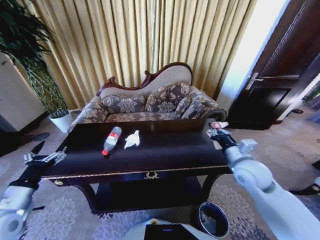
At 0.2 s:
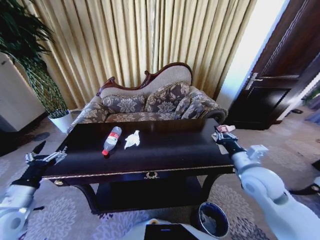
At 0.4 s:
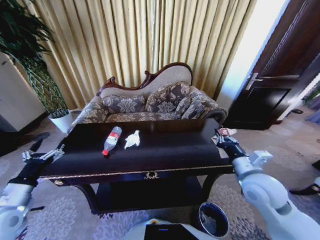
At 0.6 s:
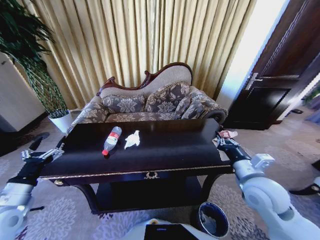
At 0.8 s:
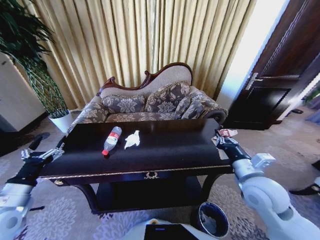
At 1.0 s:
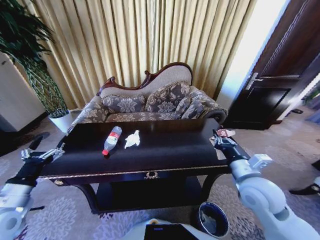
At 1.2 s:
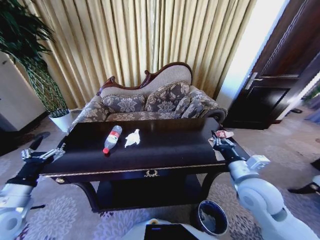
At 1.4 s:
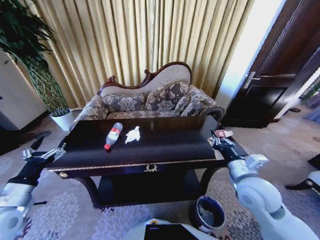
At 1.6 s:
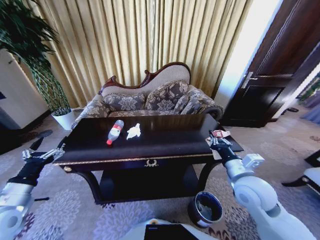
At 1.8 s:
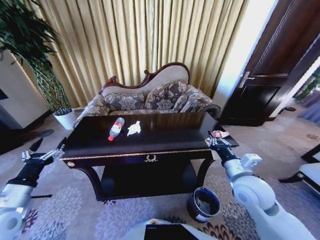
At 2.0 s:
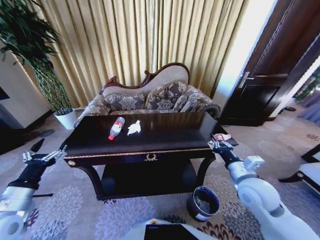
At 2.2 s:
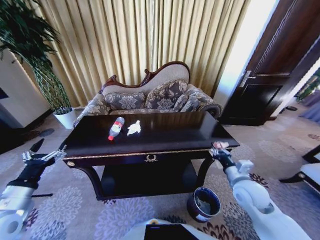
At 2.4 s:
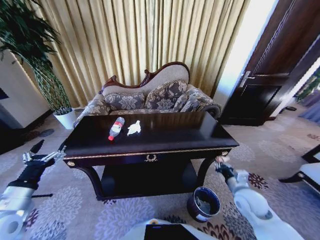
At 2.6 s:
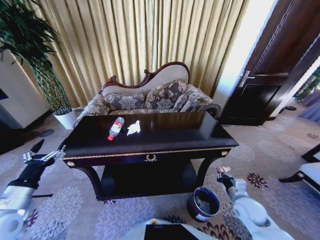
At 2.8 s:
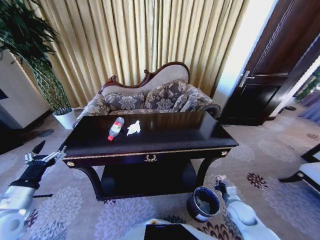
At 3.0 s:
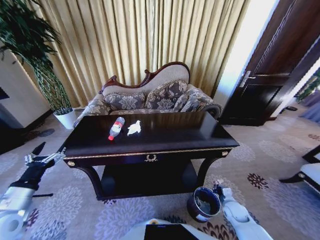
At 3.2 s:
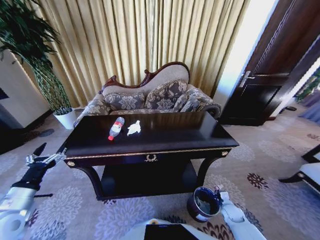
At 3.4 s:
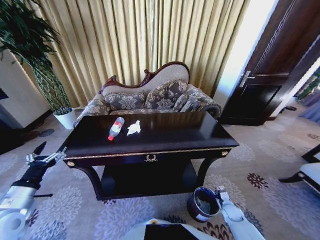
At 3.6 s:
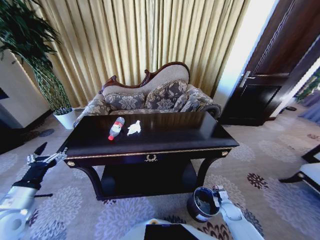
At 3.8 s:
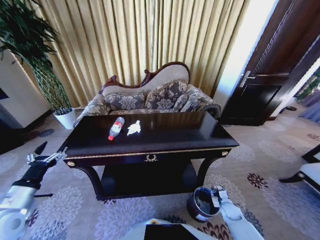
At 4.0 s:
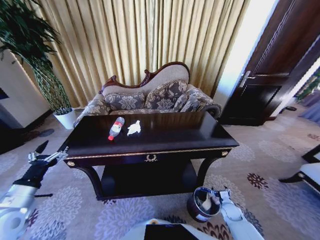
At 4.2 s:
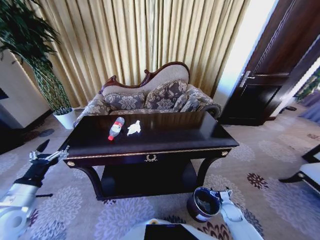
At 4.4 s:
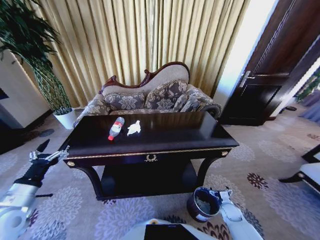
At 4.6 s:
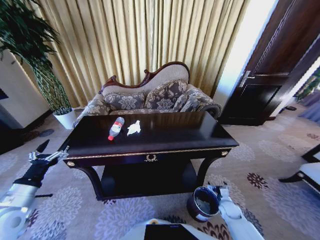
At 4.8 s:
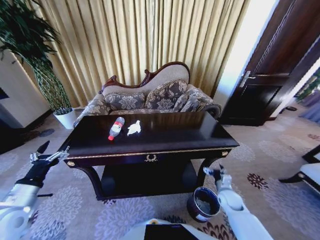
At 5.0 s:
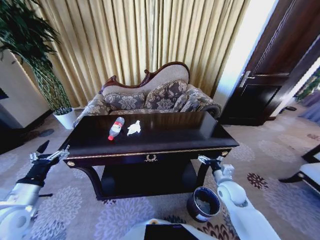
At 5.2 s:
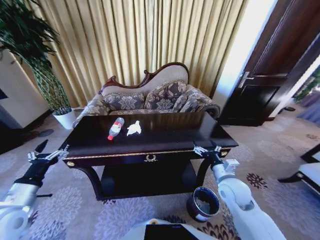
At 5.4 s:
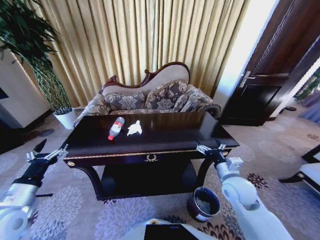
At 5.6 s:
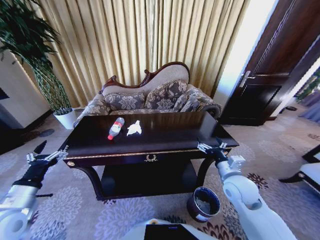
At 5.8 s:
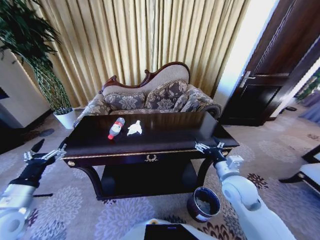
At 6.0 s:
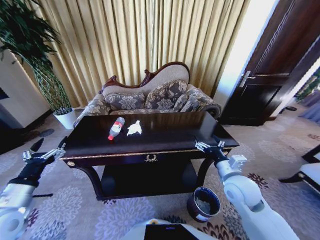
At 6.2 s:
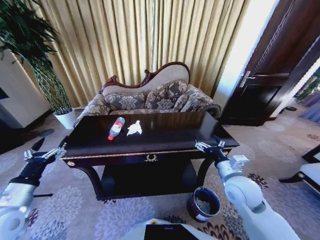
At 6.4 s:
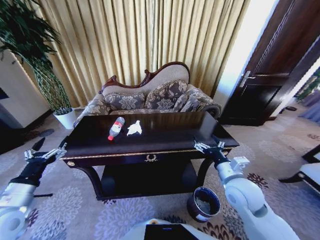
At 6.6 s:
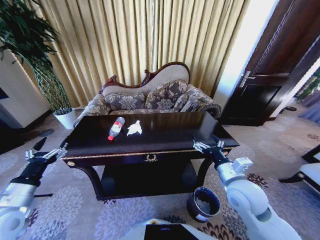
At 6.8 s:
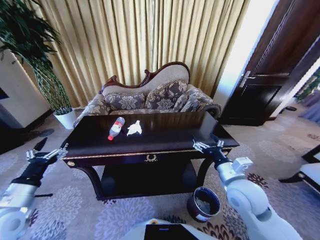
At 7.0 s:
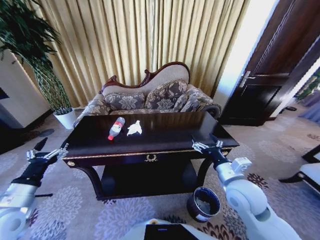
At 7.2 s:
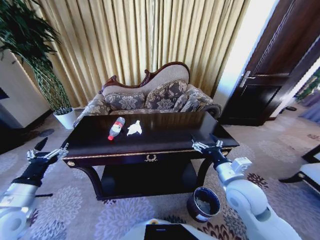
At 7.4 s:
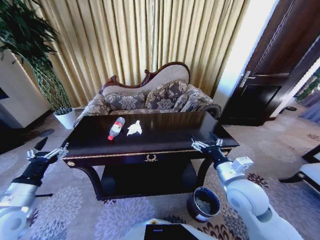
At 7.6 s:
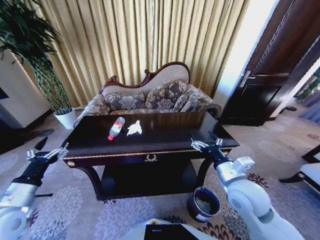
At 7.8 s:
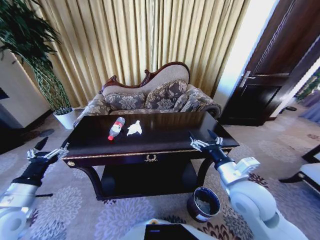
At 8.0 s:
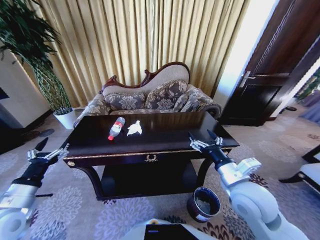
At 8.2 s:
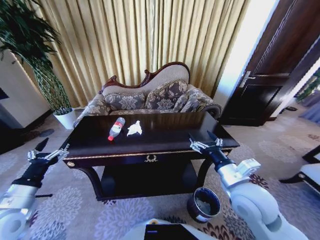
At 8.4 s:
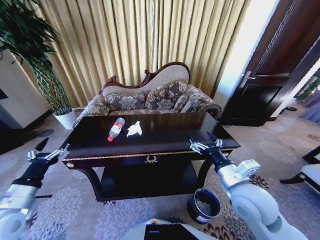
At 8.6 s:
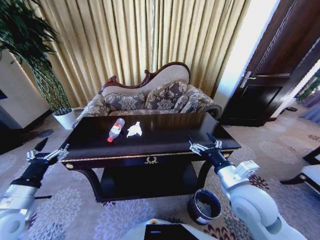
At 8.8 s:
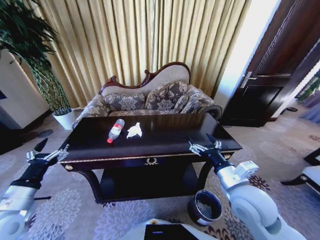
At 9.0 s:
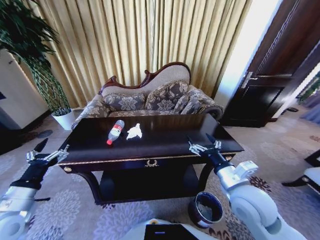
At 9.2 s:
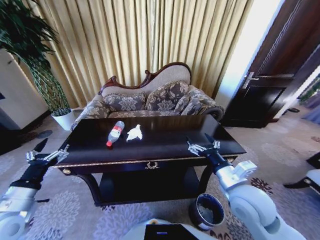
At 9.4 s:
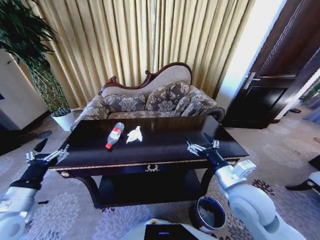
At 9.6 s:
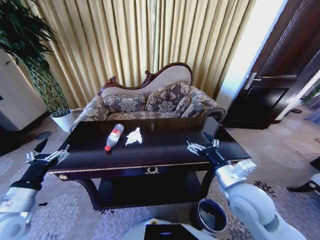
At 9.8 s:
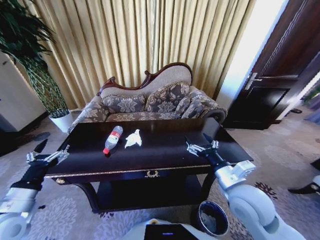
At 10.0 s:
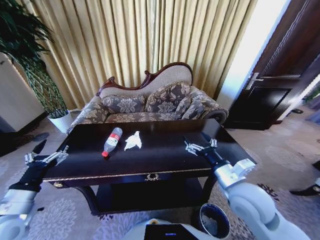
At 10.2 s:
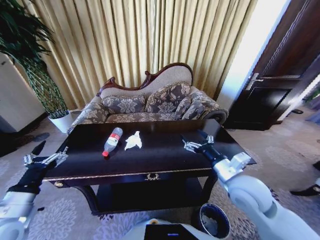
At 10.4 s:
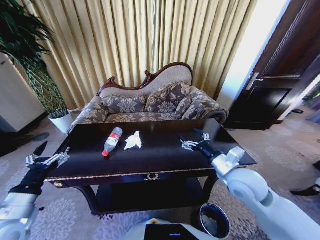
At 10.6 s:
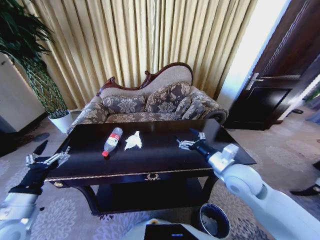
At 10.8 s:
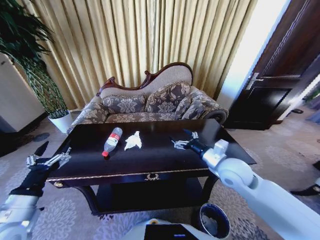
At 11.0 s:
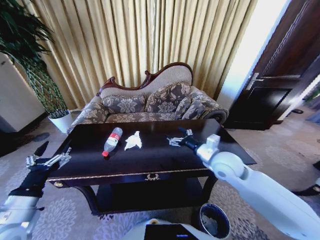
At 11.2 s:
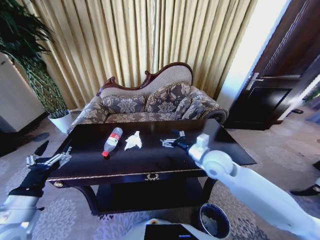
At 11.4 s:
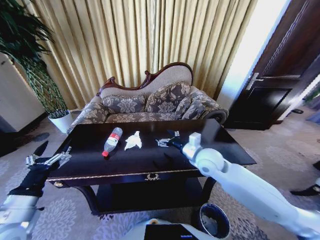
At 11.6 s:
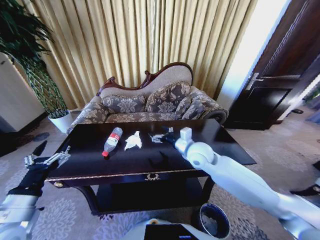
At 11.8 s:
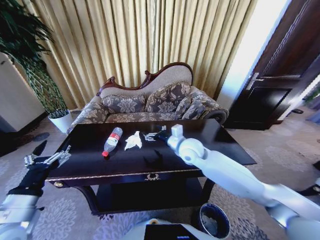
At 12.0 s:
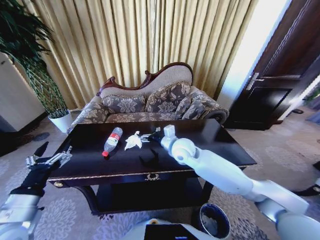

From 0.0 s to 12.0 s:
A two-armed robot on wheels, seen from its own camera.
Task of the whole recording: Move to the front of the table and place the trash on the table into the trash bin.
From 0.0 s to 1.6 s: The right gripper ends up approximately 5 cm from where it was.
From 1.6 s to 3.0 s: The right gripper heads downward, covering roughly 30 cm.
From 3.0 s to 4.4 s: The right gripper travels downward by roughly 5 cm, and opens up.
From 4.4 s to 6.0 s: The right gripper heads upward, covering roughly 35 cm.
From 6.0 s to 7.6 s: The right gripper ends up approximately 5 cm from where it was.
From 9.0 s to 10.4 s: The right gripper moves forward, roughly 5 cm.
From 10.4 s to 12.0 s: The right gripper moves to the left and forward, roughly 20 cm.

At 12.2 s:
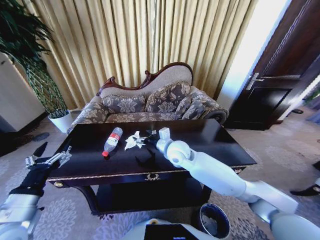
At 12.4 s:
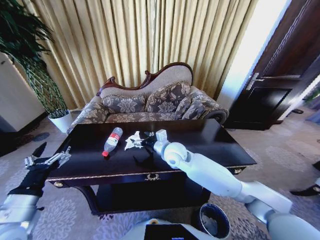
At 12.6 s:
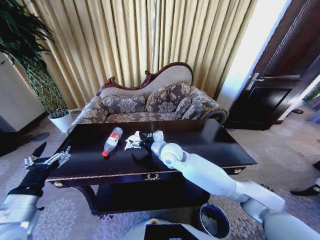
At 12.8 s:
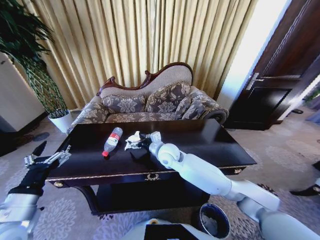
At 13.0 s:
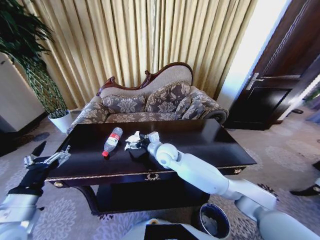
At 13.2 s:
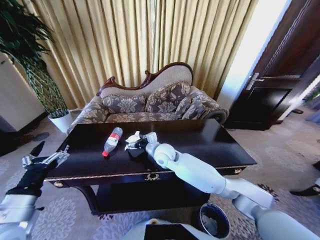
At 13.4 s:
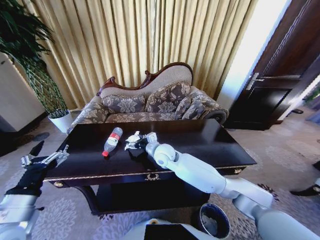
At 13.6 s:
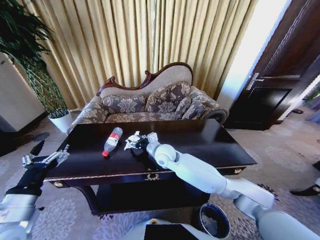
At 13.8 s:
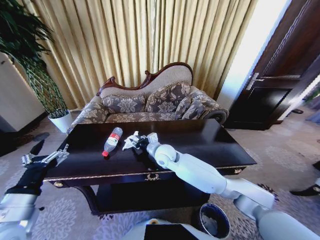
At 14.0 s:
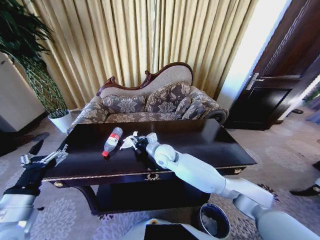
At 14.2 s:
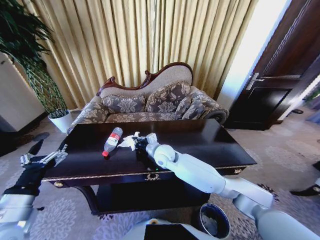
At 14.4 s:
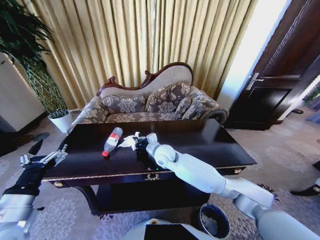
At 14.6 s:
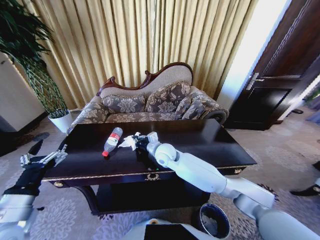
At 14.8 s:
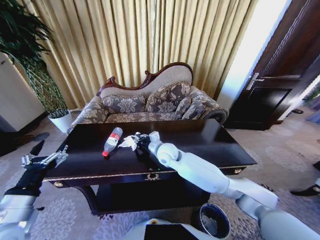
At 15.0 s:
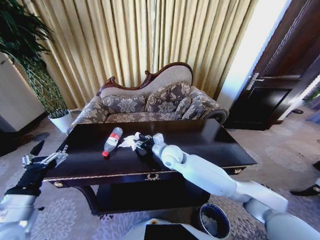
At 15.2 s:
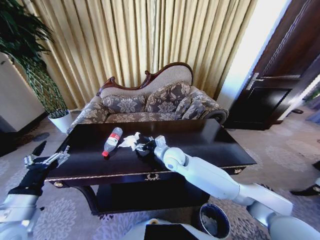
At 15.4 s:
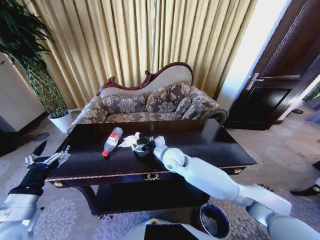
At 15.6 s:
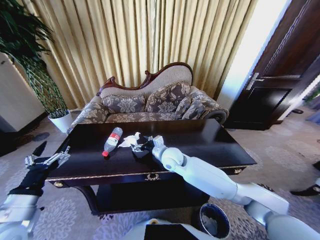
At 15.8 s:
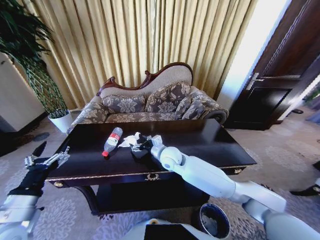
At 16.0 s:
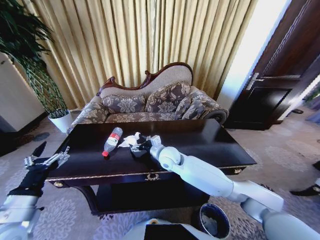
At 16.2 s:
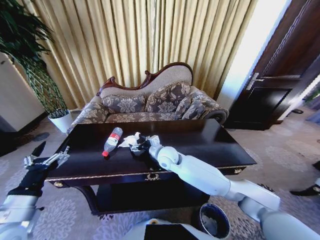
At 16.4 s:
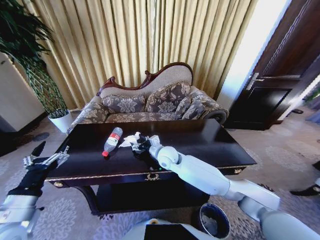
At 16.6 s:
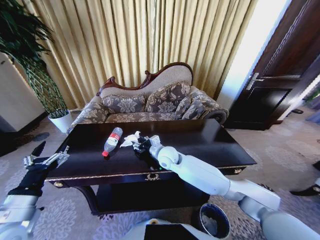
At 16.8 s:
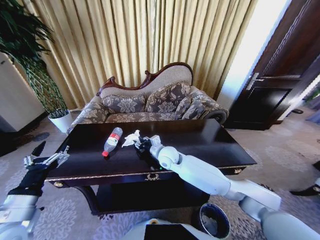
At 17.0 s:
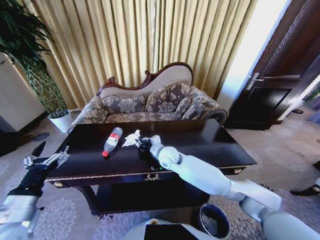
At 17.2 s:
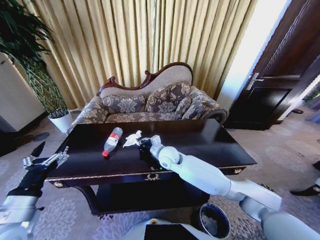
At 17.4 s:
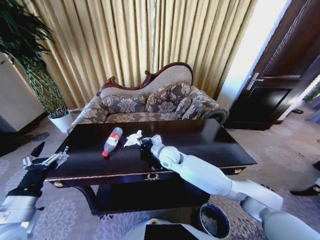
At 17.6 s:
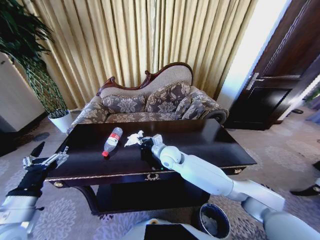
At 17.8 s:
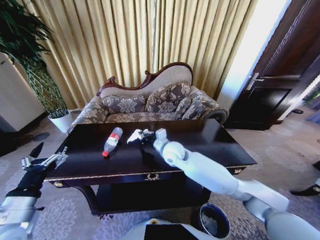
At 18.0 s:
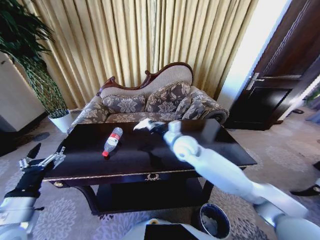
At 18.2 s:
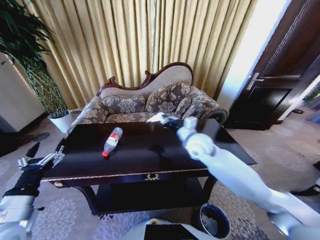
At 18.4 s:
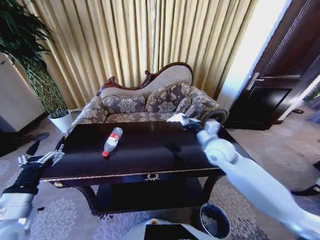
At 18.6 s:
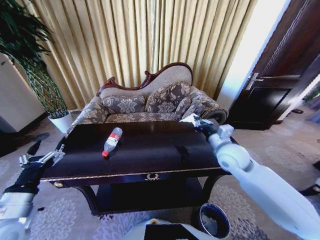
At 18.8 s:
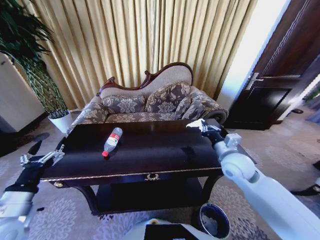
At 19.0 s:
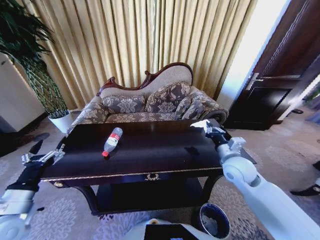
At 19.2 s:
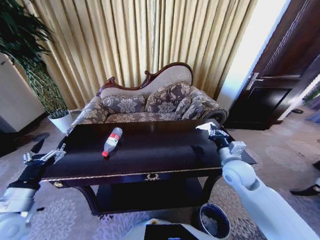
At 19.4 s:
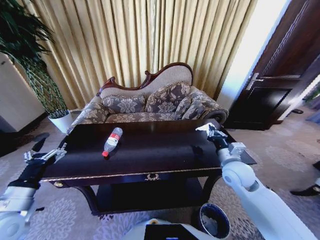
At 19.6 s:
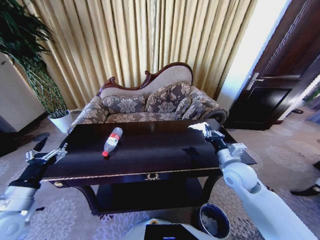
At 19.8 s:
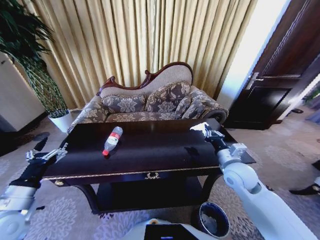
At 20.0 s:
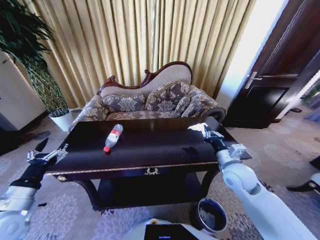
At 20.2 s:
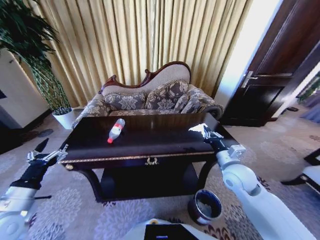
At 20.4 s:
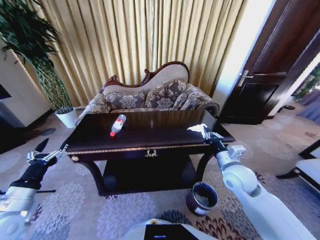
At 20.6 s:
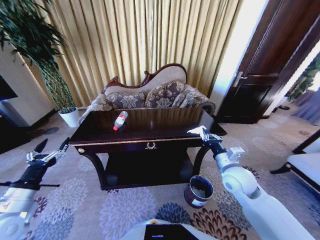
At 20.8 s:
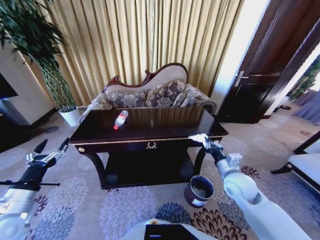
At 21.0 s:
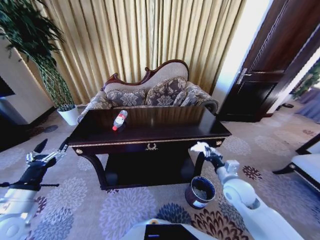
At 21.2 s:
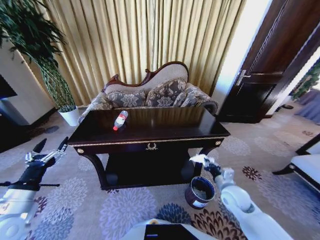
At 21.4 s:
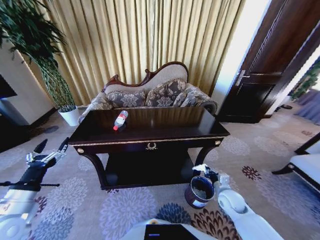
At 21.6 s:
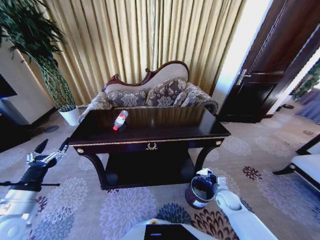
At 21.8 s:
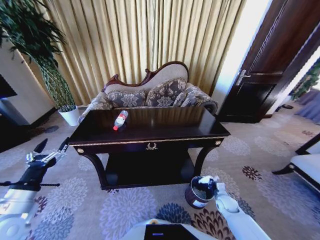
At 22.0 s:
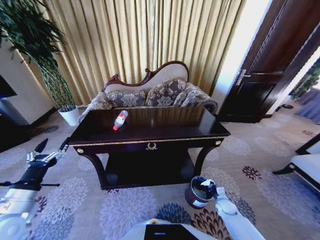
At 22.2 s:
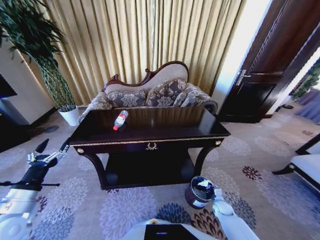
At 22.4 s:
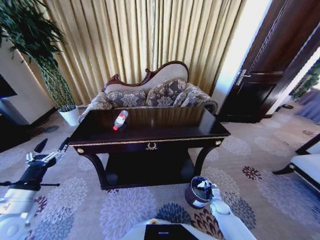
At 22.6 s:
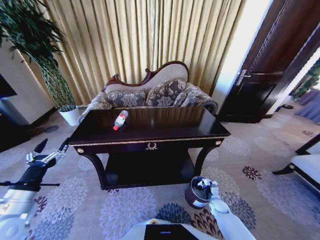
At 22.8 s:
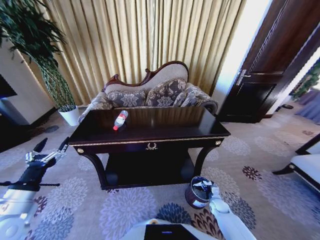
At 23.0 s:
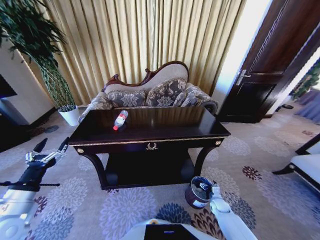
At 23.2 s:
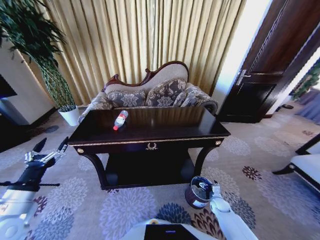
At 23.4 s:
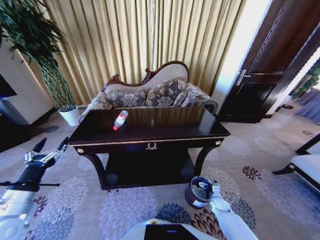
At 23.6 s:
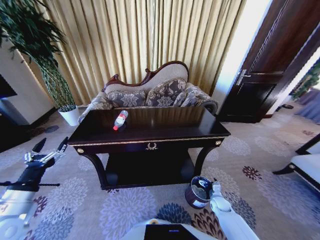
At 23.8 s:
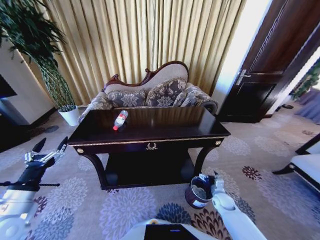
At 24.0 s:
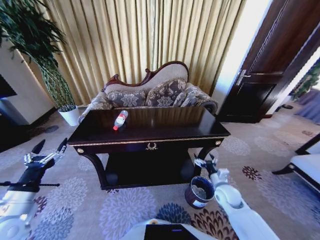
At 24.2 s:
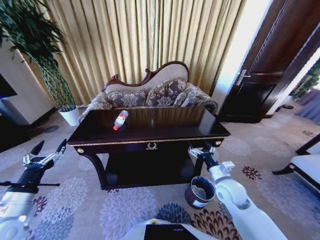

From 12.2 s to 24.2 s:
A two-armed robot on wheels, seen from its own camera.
Task of the whole recording: Move to the front of the table and place the trash on the table into the trash bin.
From 12.2 s to 13.8 s: The right gripper changes place by about 5 cm, and closes.
From 13.8 s to 15.2 s: The right gripper closes, then reopens.
From 15.2 s to 16.6 s: The grippers stay close to where they were, moving slightly.
From 16.6 s to 18.2 s: The right gripper travels to the right and upward by some 15 cm, and closes its fingers.
From 18.2 s to 19.8 s: The right gripper moves to the right, backward and downward, roughly 20 cm.
From 19.8 s to 21.2 s: The right gripper shifts some 15 cm downward.
From 21.2 s to 22.6 s: The right gripper travels downward by some 25 cm, and opens.
From 22.6 s to 24.2 s: The right gripper travels upward by some 30 cm, and opens up.
